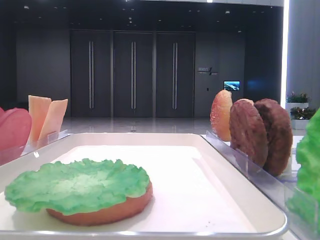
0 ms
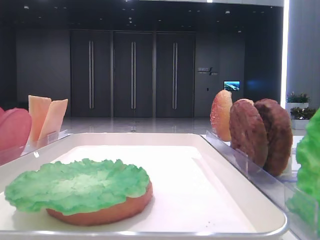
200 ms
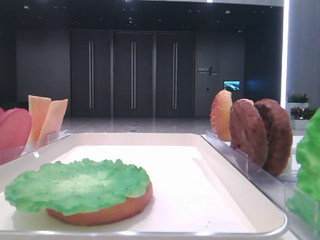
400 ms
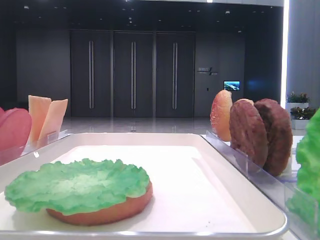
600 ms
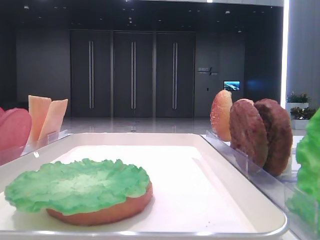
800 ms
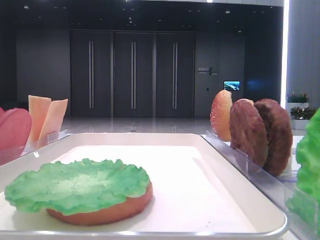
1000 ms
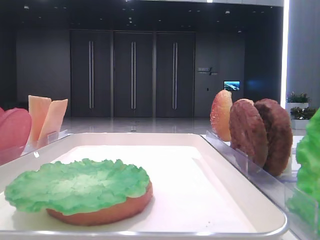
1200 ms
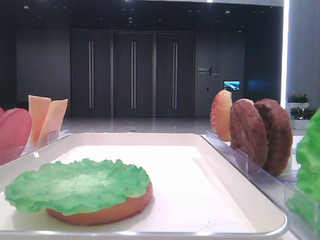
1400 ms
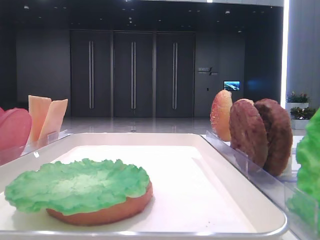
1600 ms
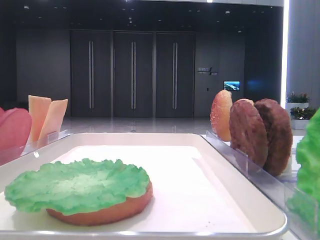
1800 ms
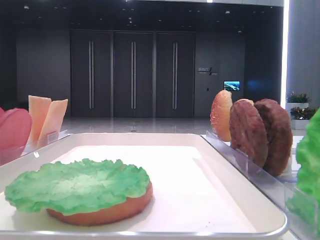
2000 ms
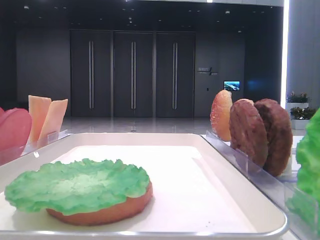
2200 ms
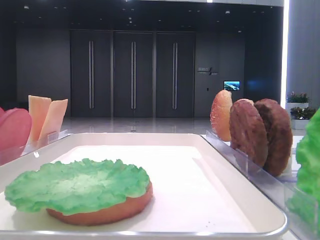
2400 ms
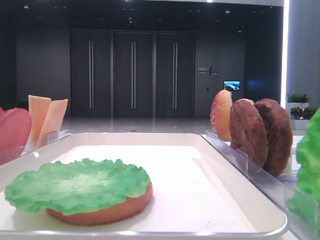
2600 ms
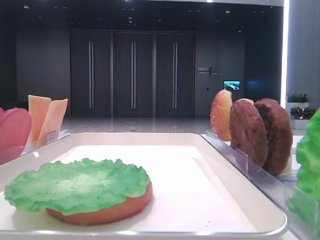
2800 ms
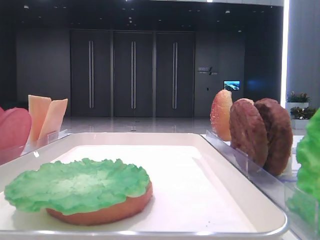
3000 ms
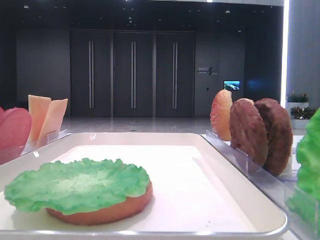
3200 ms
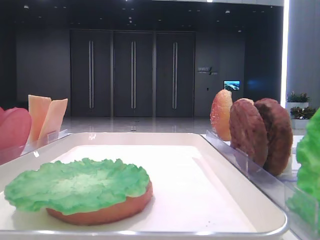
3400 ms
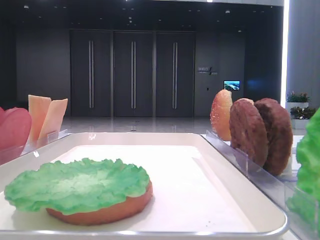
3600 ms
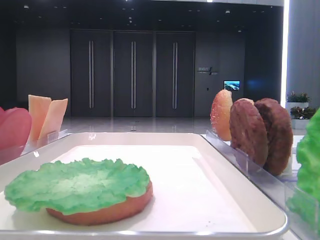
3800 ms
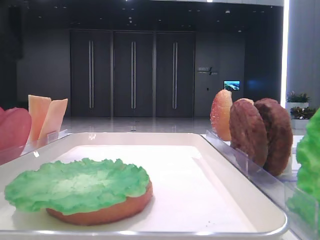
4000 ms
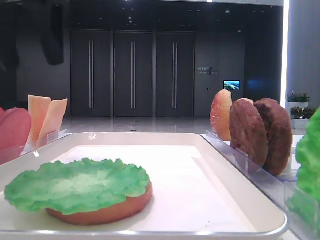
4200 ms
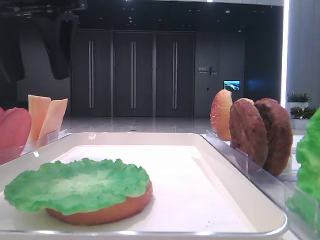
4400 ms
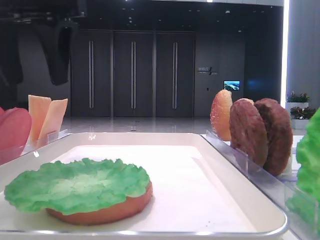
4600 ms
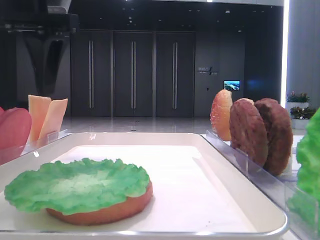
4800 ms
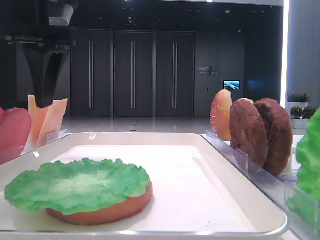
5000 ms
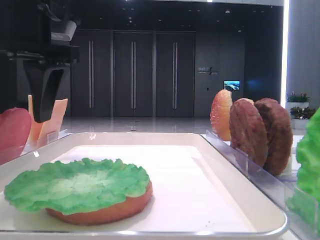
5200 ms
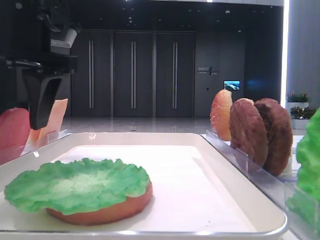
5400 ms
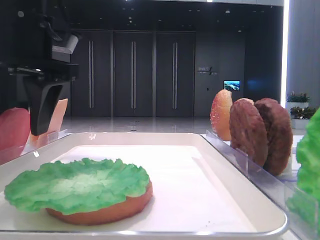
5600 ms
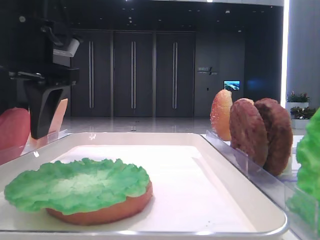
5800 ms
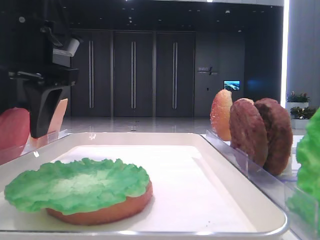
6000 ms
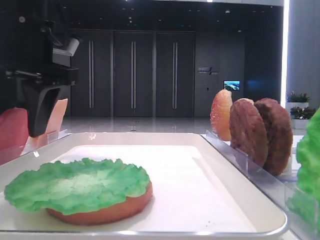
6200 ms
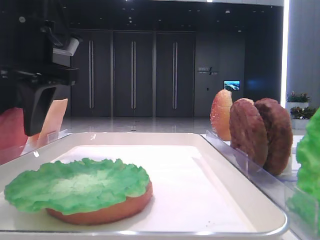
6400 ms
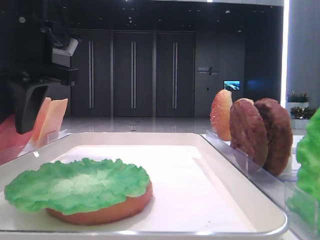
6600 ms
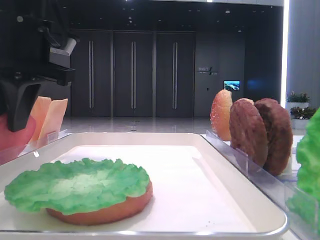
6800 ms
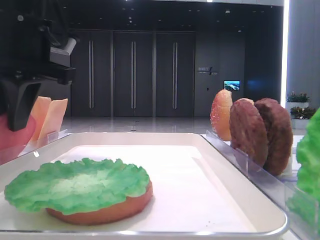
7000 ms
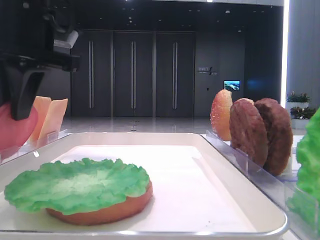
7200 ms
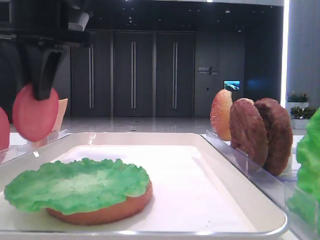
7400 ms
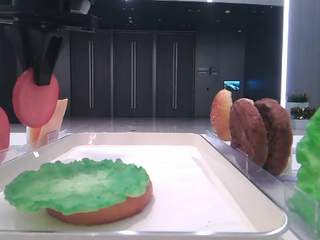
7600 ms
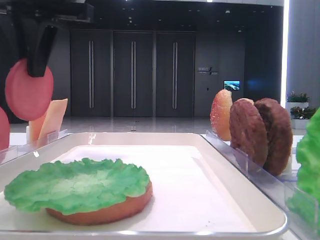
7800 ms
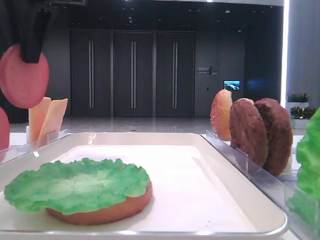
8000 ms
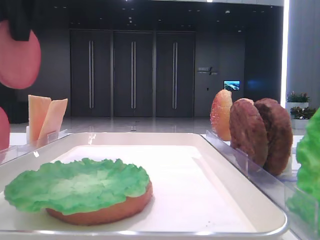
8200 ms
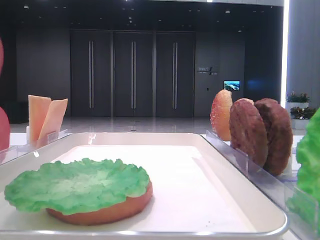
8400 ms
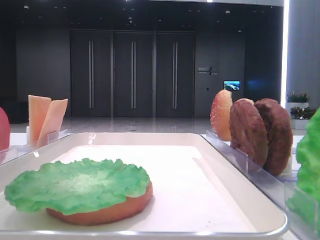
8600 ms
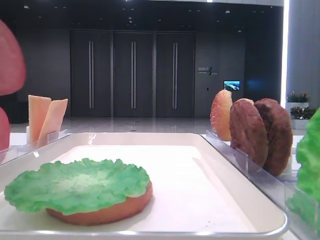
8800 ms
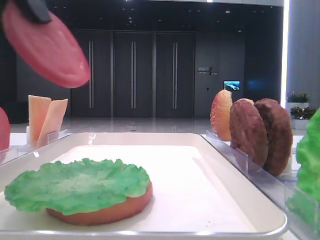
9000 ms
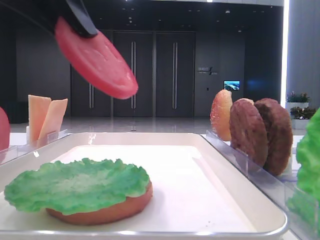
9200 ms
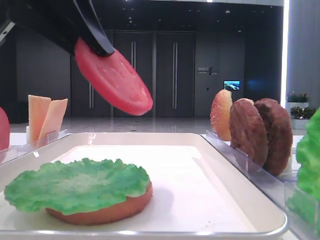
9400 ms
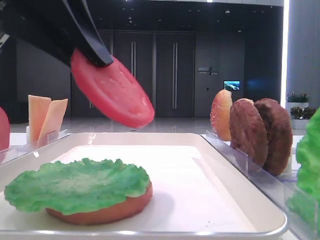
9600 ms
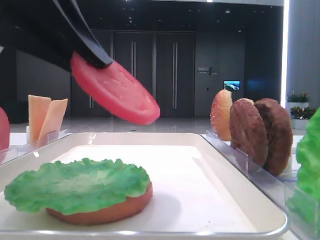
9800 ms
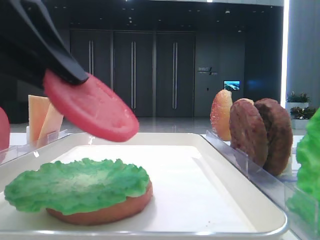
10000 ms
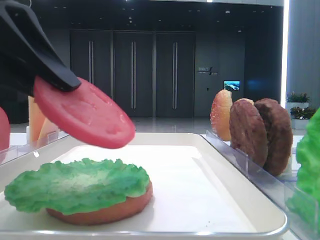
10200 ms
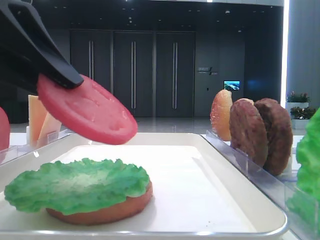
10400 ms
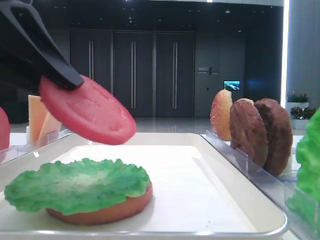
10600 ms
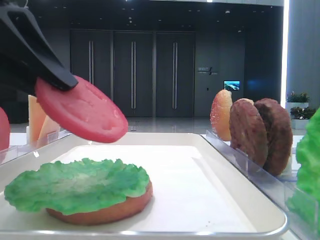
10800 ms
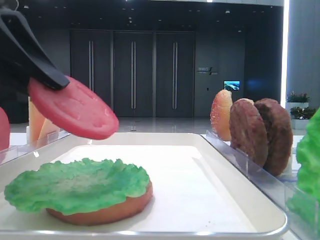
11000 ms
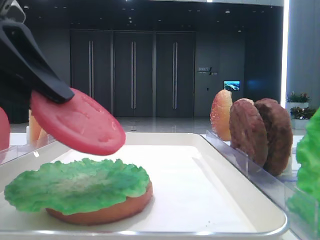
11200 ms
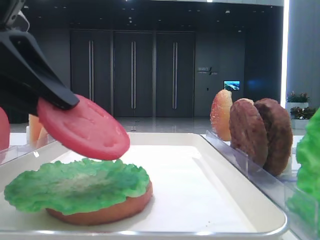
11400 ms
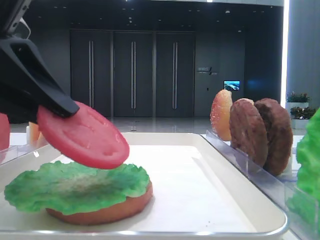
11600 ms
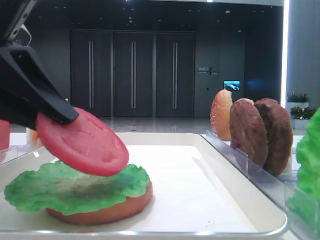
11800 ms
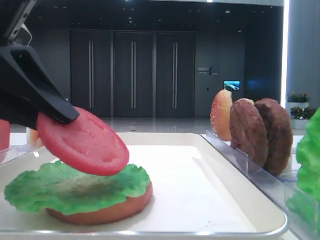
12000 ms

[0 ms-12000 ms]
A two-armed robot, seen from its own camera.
Step, 0 ms to 6600 ms: Pick up the tomato slice with the left hand.
3000 ms to 4400 ms: The left gripper goes some 15 cm to the right.
4400 ms to 6000 ms: The left gripper is displaced downward by roughly 5 cm.
6000 ms to 7600 ms: The left gripper is displaced upward by roughly 5 cm, and closes its fingers.
7600 ms to 9000 ms: The left gripper heads backward, covering some 15 cm.
9000 ms to 10400 ms: The left gripper moves downward, roughly 10 cm.
10400 ms to 12000 ms: The grippers stay close to where they were, moving slightly.

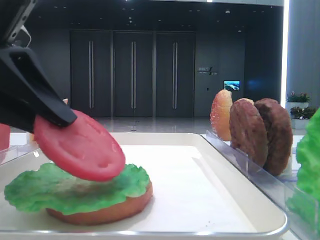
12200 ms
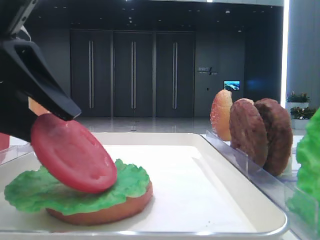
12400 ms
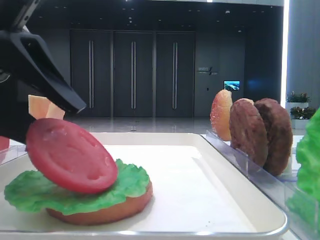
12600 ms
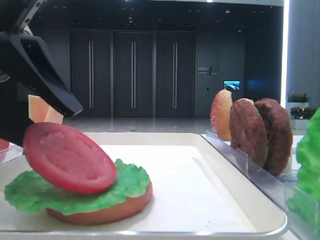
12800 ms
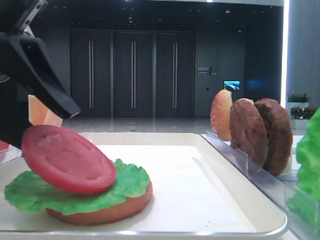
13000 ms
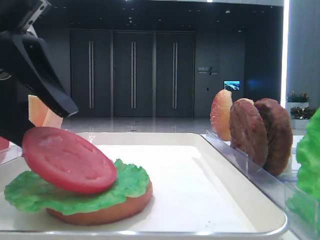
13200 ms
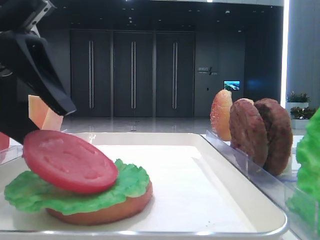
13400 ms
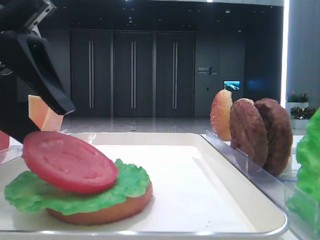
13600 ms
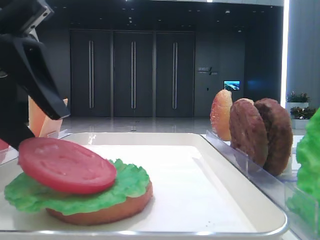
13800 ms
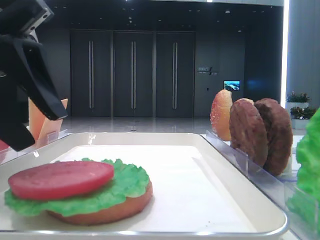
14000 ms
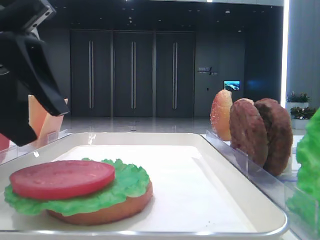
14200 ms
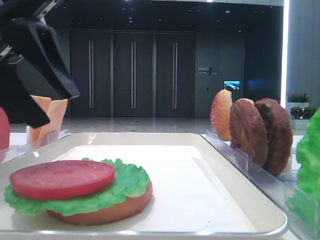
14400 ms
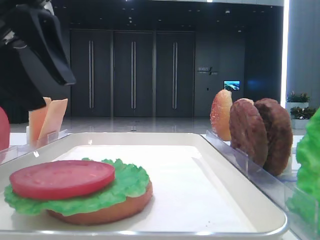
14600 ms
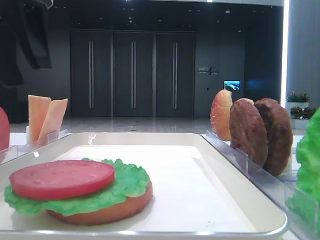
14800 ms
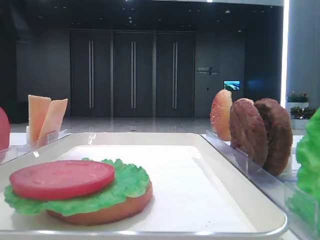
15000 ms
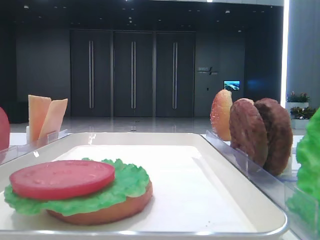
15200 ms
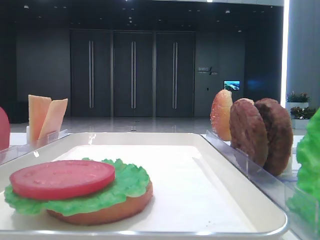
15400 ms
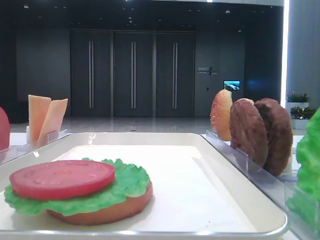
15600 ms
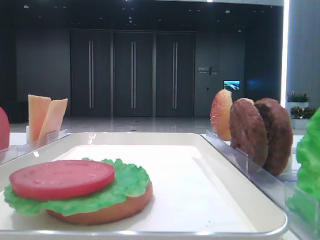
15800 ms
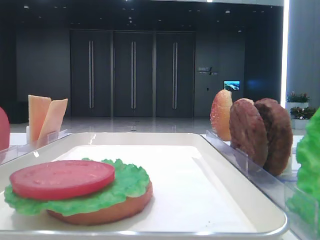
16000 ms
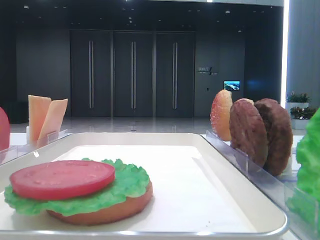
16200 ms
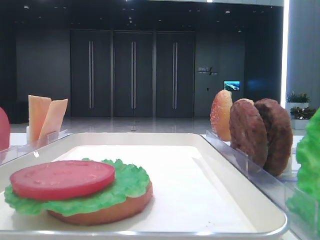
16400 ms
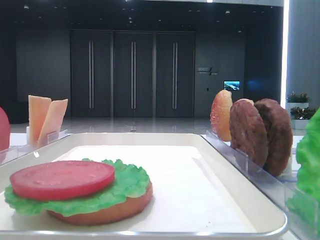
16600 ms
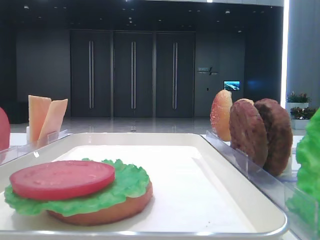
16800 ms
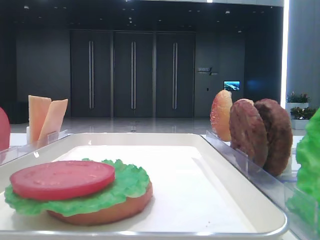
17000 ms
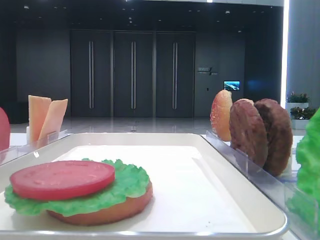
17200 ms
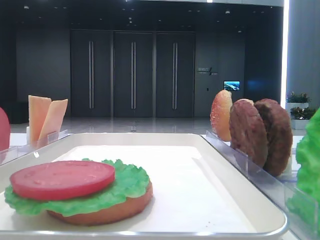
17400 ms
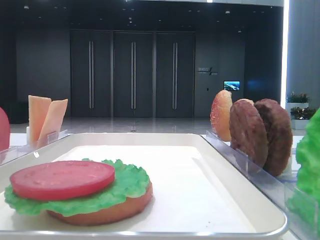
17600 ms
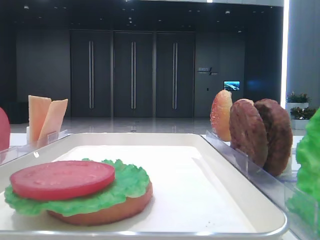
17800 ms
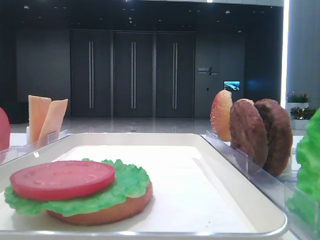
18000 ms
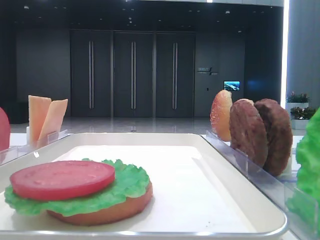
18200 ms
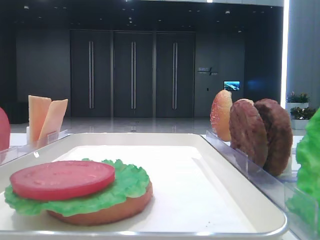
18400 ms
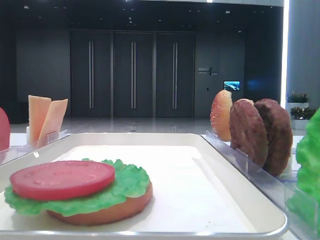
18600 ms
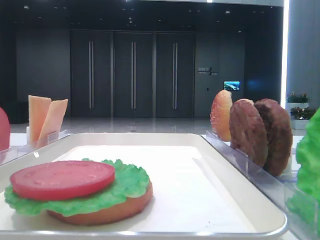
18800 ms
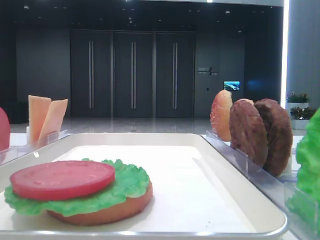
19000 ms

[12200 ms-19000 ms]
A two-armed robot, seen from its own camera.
12200 ms to 13600 ms: The left gripper opens its fingers.
13600 ms to 15000 ms: The left gripper travels upward and forward by some 15 cm.
17600 ms to 19000 ms: Both grippers stay put.

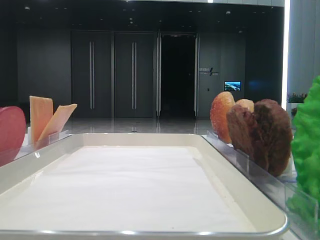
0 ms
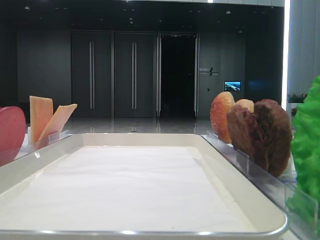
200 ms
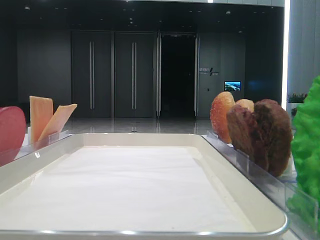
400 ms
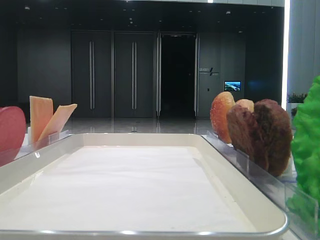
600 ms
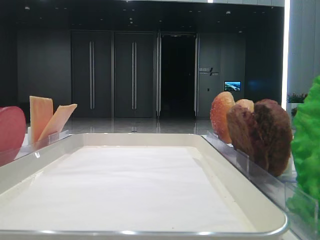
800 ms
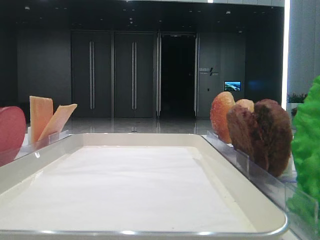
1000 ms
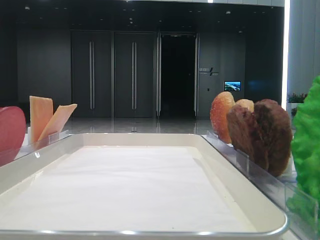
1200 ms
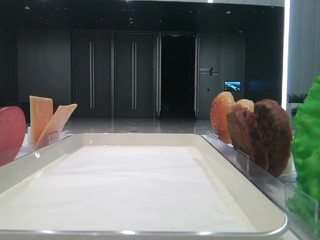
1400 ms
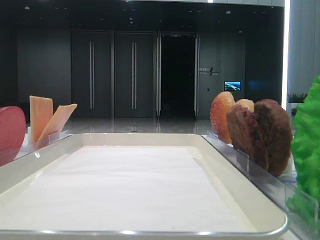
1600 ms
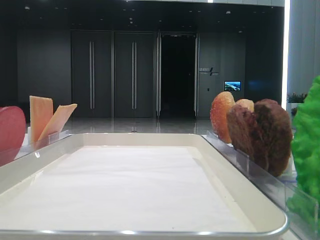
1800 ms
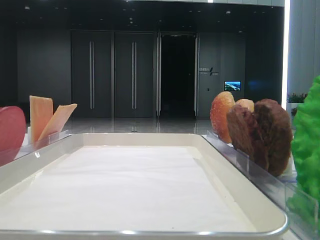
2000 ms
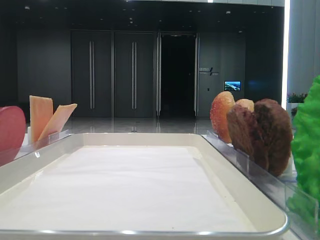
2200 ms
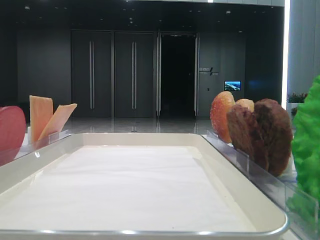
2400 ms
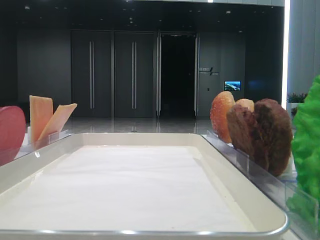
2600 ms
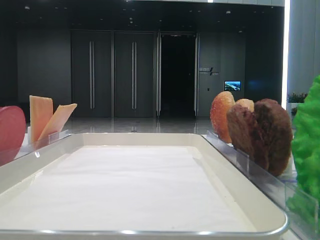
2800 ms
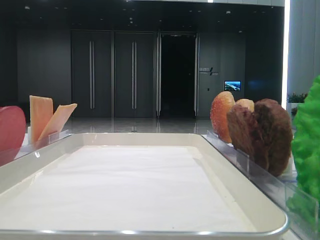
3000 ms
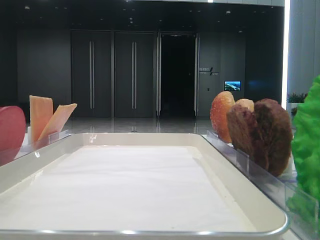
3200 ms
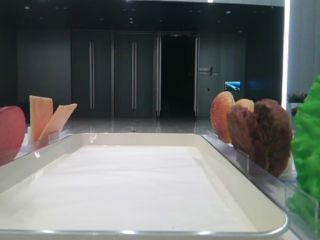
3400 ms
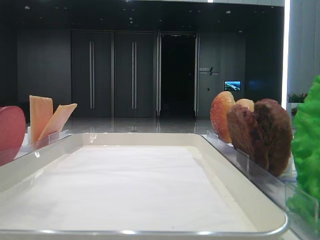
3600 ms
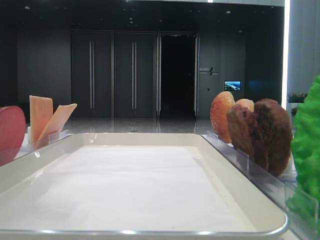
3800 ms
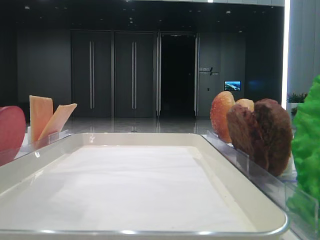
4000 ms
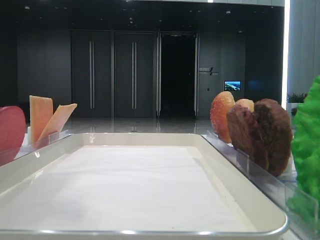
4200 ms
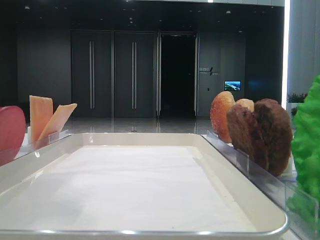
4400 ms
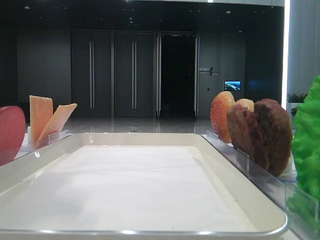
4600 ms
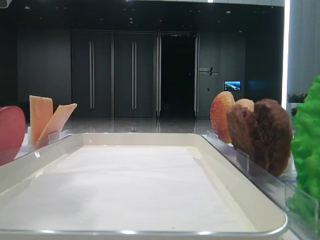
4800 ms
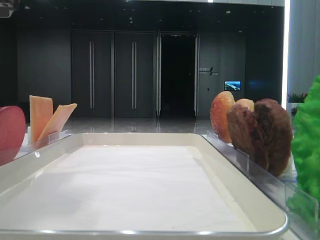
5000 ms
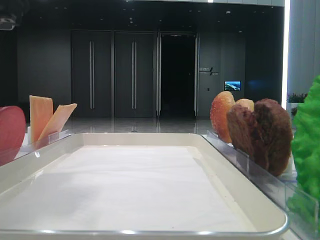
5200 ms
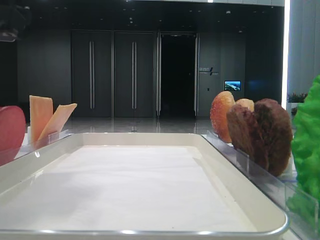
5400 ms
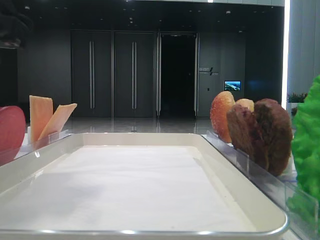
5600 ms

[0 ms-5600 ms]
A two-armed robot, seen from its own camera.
2800 ms to 4200 ms: The left gripper is displaced to the right by about 15 cm.
